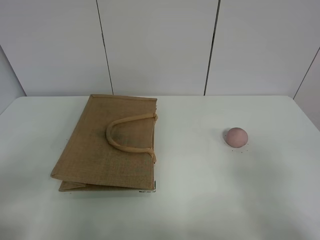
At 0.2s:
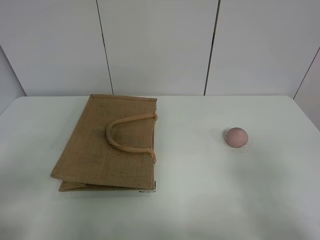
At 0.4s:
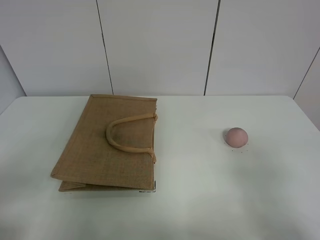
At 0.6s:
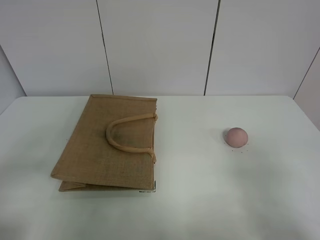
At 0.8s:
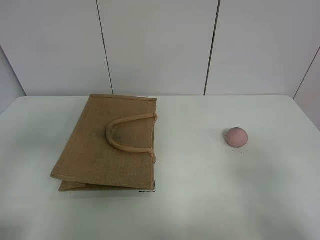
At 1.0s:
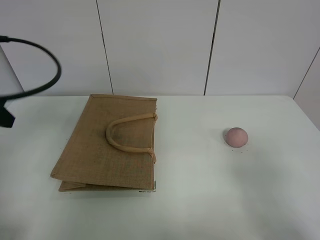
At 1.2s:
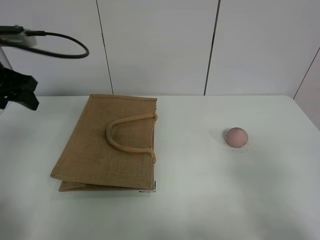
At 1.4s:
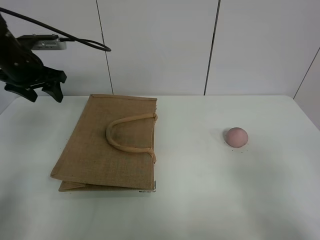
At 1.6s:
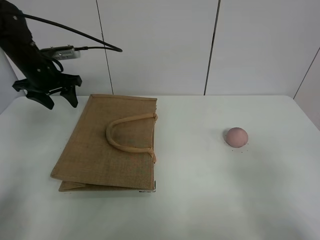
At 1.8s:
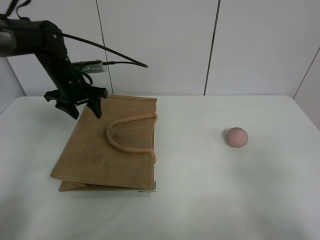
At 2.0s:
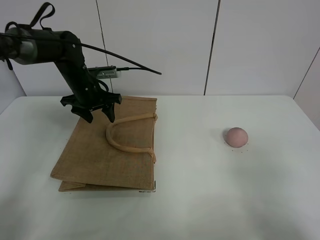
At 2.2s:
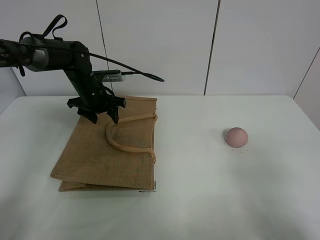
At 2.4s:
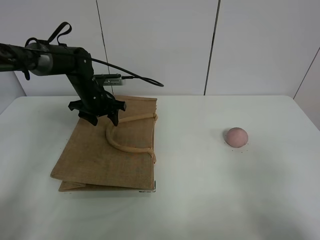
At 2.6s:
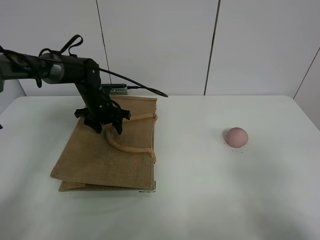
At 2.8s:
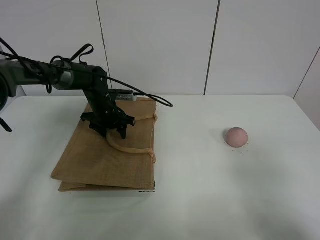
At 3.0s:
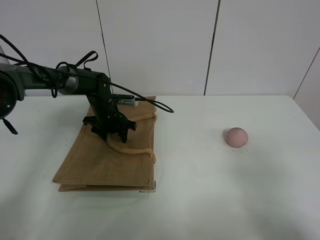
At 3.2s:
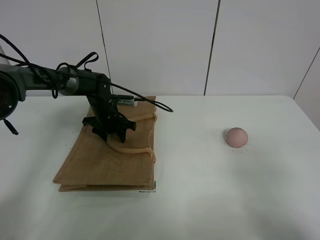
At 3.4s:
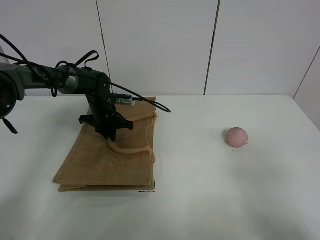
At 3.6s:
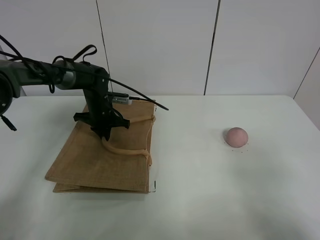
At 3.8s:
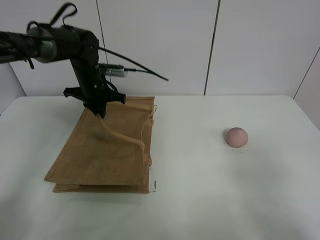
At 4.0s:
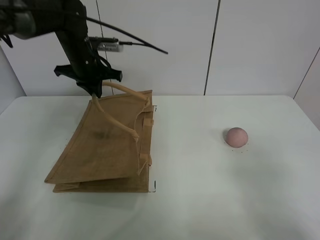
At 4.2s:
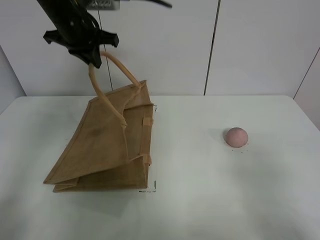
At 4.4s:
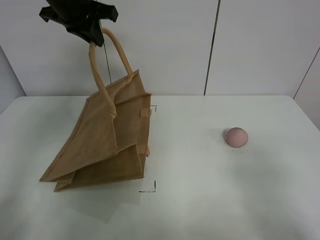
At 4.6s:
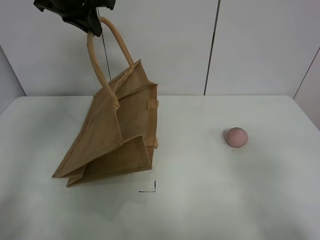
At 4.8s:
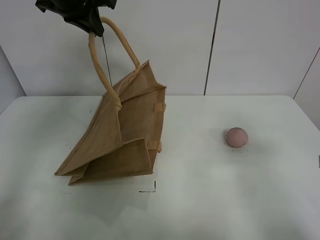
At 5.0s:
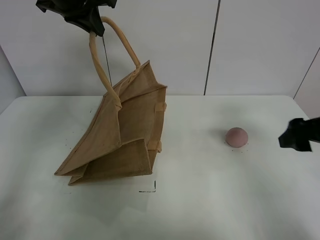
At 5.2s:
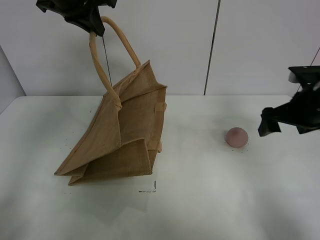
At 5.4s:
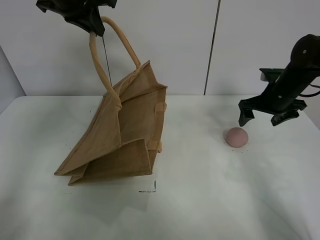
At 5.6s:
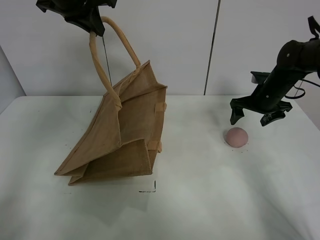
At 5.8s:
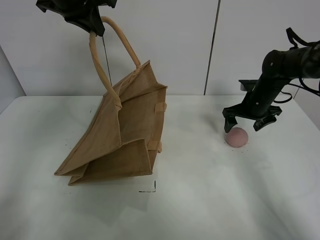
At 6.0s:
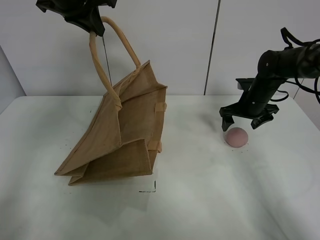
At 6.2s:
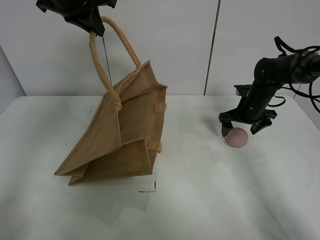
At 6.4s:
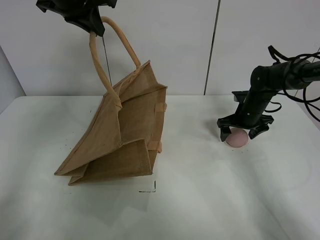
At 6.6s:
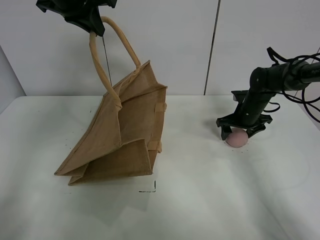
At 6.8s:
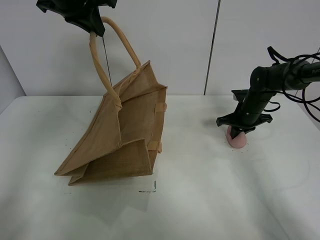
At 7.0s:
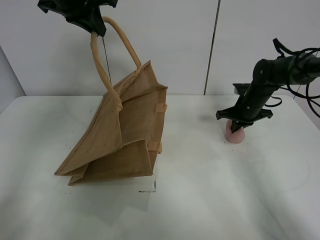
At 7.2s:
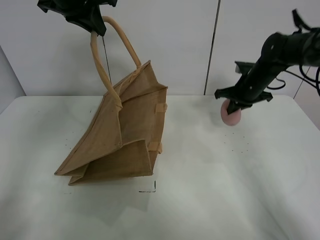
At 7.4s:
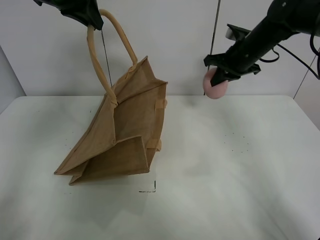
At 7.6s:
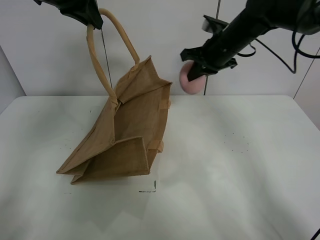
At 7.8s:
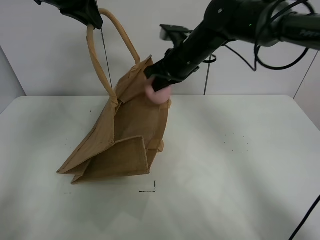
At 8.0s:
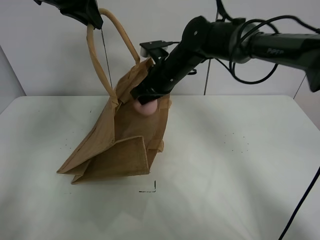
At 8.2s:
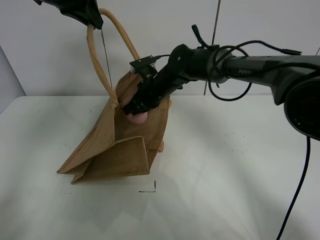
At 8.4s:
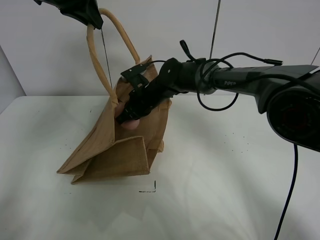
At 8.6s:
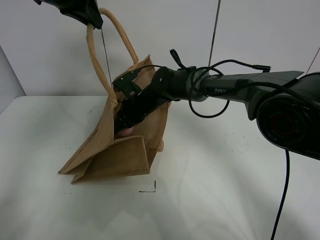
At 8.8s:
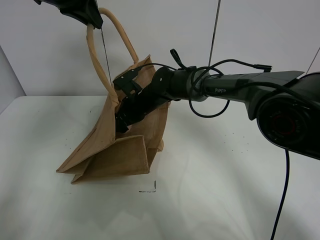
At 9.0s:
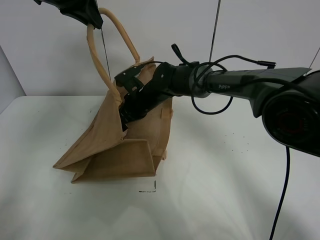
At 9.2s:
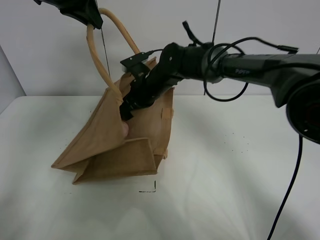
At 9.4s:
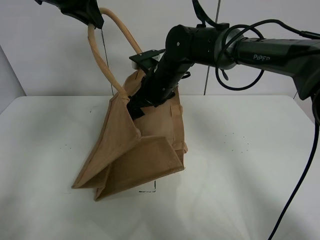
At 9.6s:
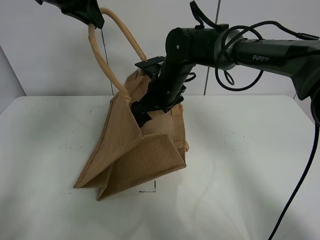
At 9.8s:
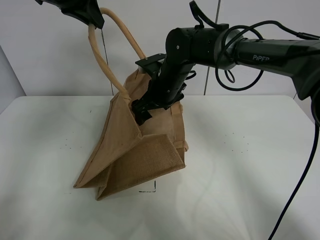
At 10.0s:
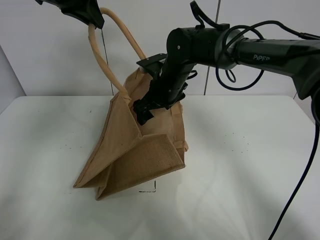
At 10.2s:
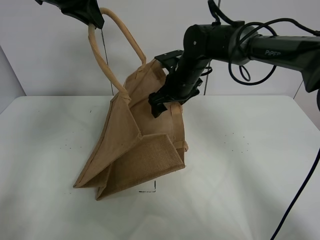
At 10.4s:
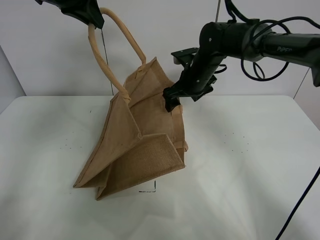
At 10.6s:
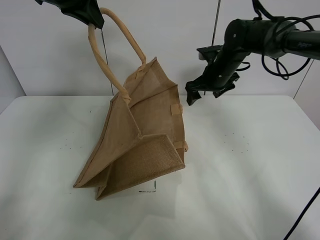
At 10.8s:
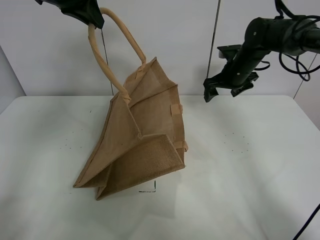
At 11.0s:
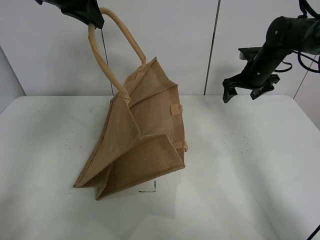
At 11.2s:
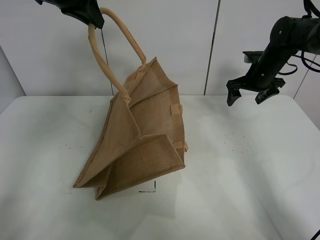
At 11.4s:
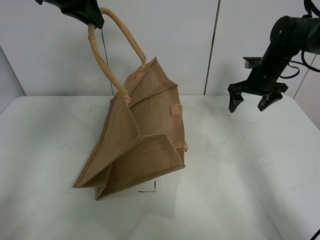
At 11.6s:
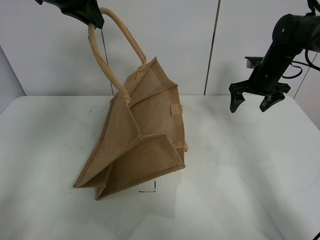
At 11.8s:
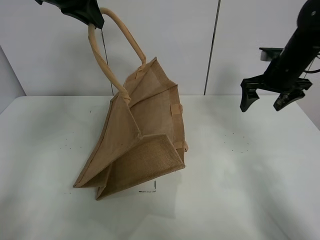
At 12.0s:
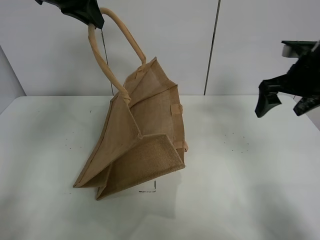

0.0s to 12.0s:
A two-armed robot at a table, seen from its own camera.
Task of the whole recording: open the brown linen bag and put the peach in the bag.
Step, 0.0s to 4.4s: Lift the handbag with left gripper.
Step, 4.6s to 6.8s: Grasp the peach with right gripper.
Step, 7.0s to 10.6s: Place the peach in the handbag with right gripper.
0.0s to 1.6s: The left gripper moves forward, approximately 40 cm.
1.6s to 3.0s: The left gripper heads downward and to the right, covering about 20 cm.
3.0s to 4.4s: The left gripper goes approximately 30 cm upward, and closes up.
4.4s to 6.0s: The right gripper goes approximately 40 cm forward.
6.0s to 7.6s: The right gripper travels upward and to the left by some 20 cm, and closes its fingers.
7.6s to 9.0s: The right gripper is displaced to the left and downward by about 20 cm, and opens.
9.0s to 10.4s: The right gripper travels to the right and upward by some 15 cm.
10.4s to 12.0s: The right gripper heads to the right, backward and upward, covering some 25 cm.

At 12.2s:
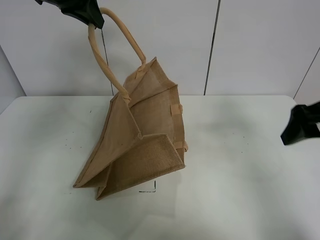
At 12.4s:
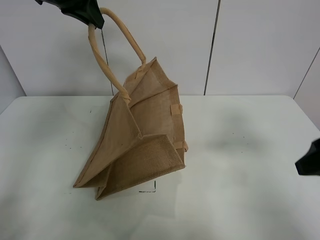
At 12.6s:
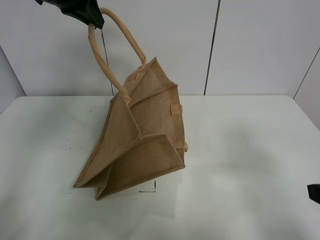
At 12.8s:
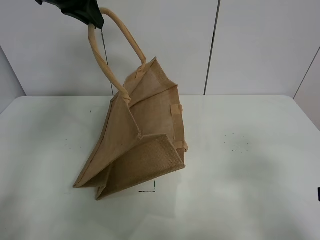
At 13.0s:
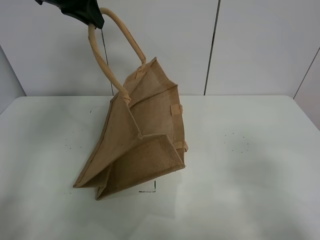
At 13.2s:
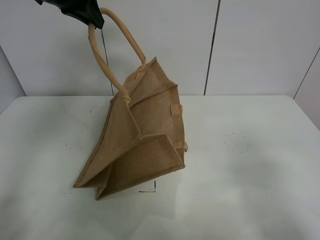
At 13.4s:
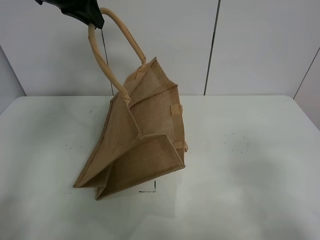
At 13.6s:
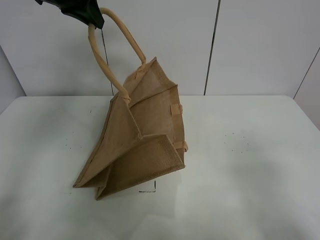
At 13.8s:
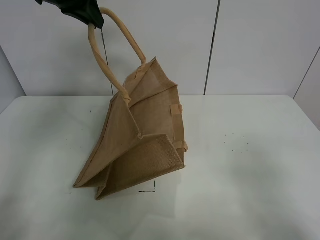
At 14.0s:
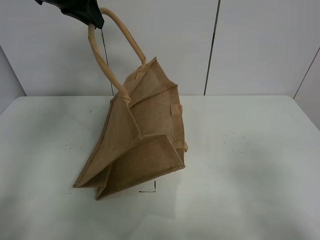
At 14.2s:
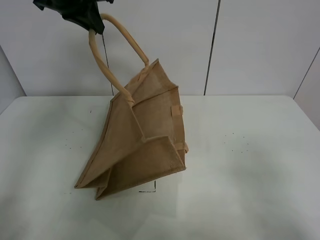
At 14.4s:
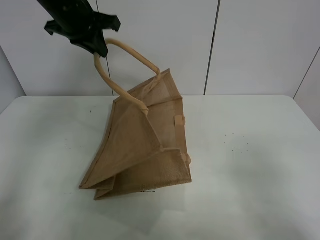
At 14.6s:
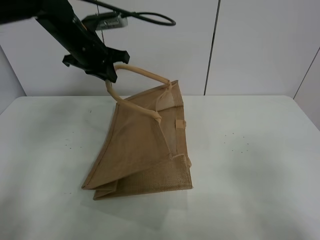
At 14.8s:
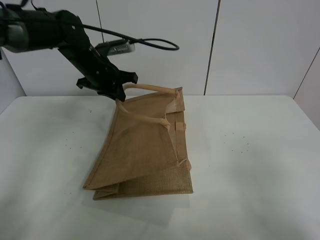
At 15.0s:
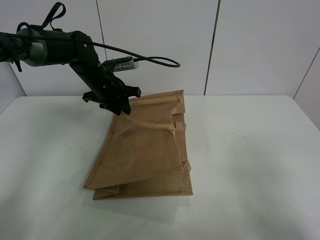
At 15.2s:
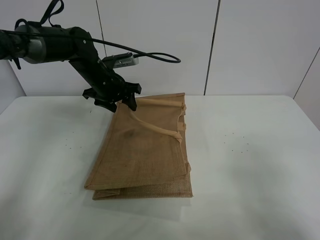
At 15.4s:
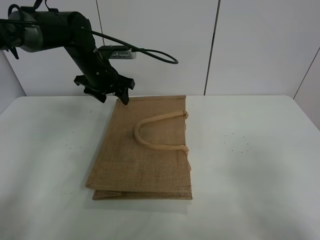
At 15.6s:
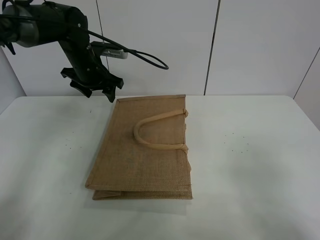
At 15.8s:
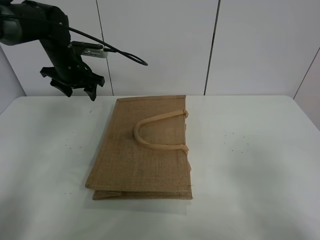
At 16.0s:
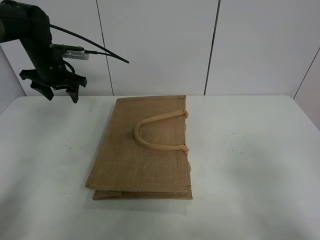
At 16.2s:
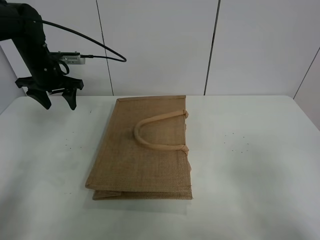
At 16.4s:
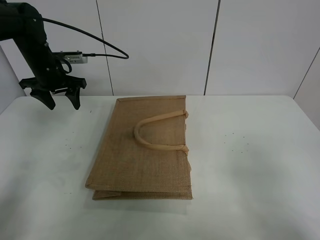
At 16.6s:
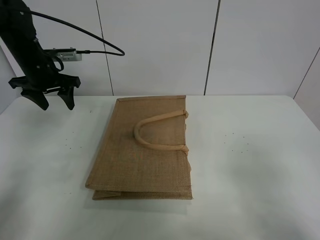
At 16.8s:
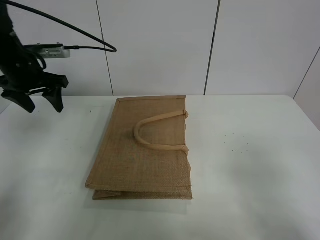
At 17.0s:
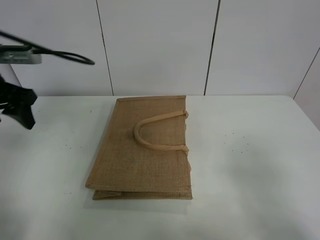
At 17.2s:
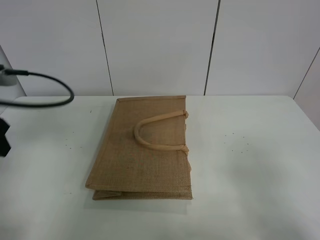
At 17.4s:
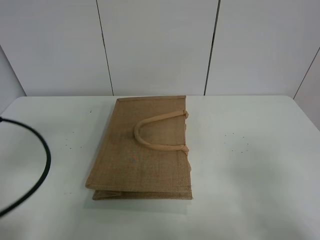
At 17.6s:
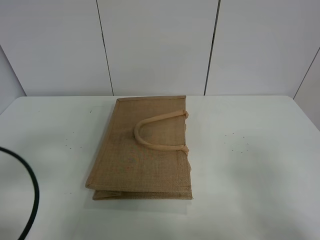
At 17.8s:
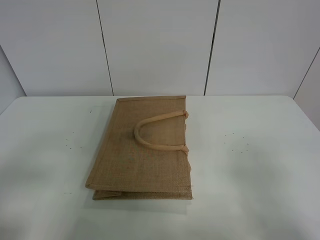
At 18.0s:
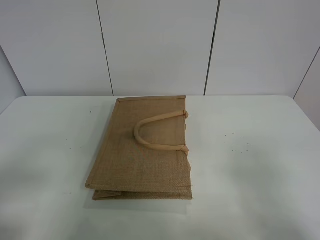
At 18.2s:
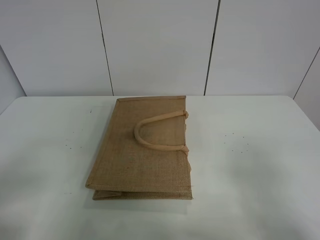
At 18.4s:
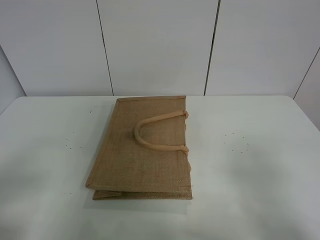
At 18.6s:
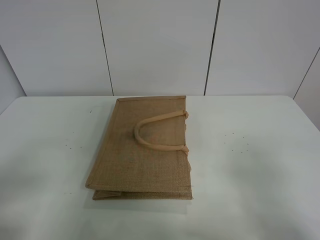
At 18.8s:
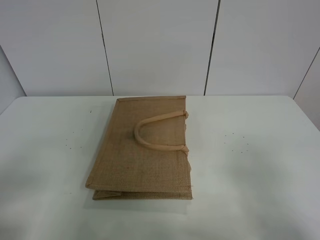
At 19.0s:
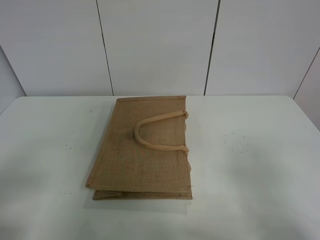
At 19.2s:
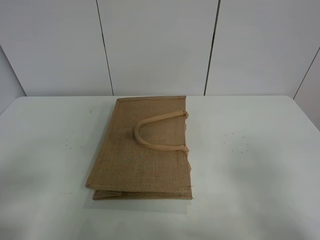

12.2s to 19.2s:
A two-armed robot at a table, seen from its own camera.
Task of the whole recording: open the brown linen bag and put the peach in the bag.
Step, 12.2s to 15.6s: Put down the handbag with left grippe.
12.2s to 13.6s: The right gripper heads backward, covering about 15 cm.
13.6s to 15.0s: The left gripper shifts roughly 25 cm downward, and opens its fingers.
15.0s to 16.4s: The left gripper goes about 15 cm to the left, and opens up.
16.4s to 17.8s: The left gripper goes approximately 40 cm backward.

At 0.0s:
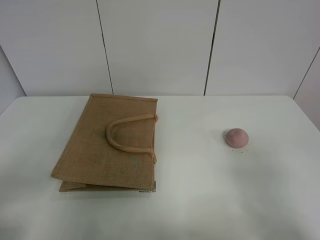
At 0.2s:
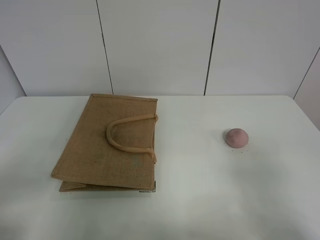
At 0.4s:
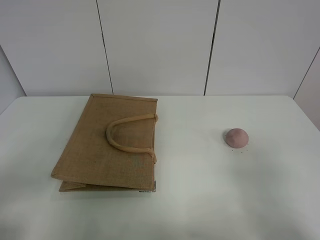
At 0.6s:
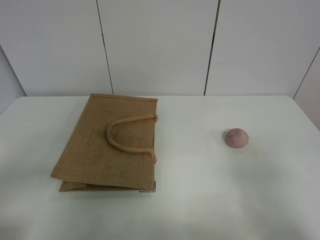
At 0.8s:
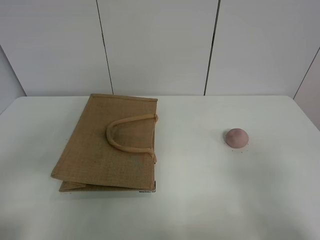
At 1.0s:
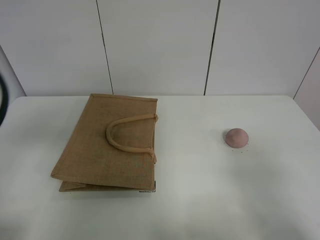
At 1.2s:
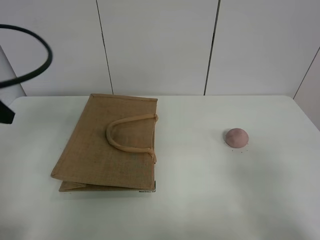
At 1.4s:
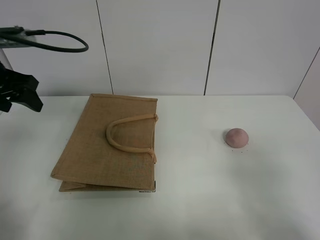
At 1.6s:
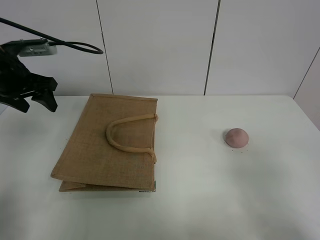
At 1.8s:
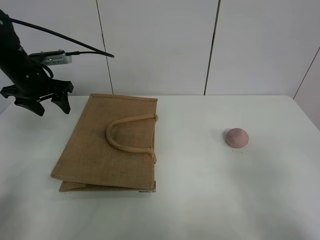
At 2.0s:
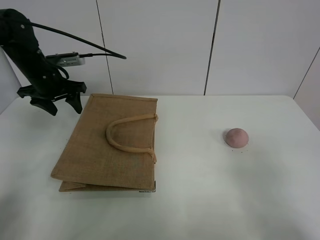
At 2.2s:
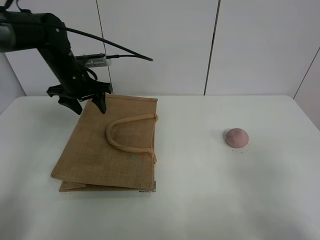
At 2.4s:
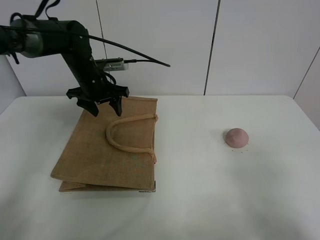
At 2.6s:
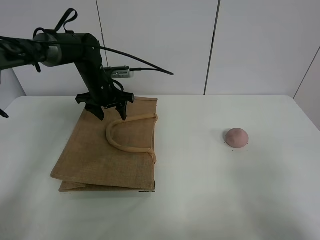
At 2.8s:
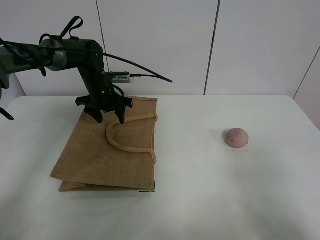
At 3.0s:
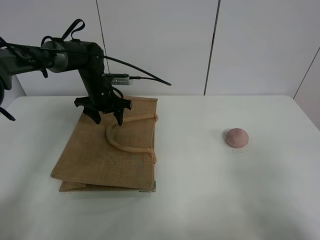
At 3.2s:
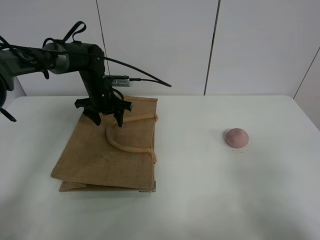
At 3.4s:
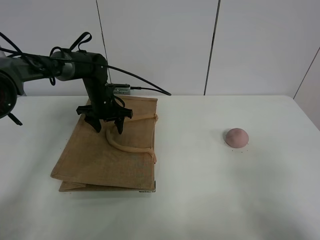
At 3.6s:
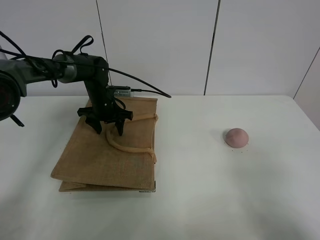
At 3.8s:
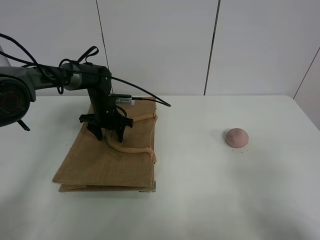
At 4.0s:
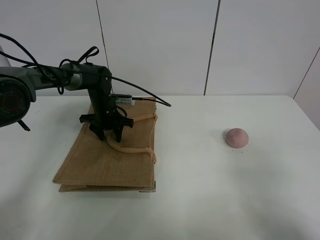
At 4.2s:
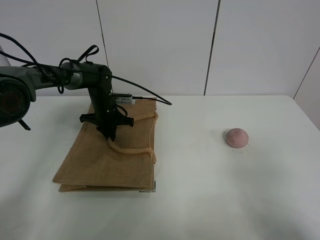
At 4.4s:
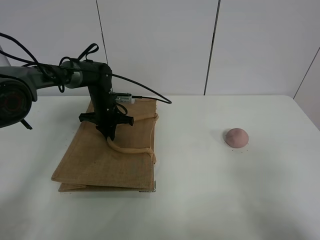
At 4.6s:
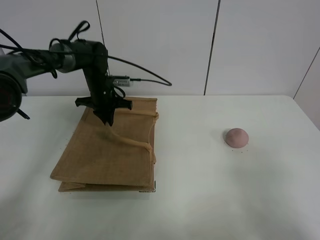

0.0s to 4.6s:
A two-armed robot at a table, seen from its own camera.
Task of the whole recording: open the brown linen bag and put the peach in the bag.
0.0s to 1.6s: The left gripper goes approximately 35 cm forward.
1.6s to 3.0s: The left gripper goes approximately 20 cm to the right, downward and forward.
3.0s to 4.6s: The left gripper moves approximately 5 cm downward and comes back, and closes its fingers.
